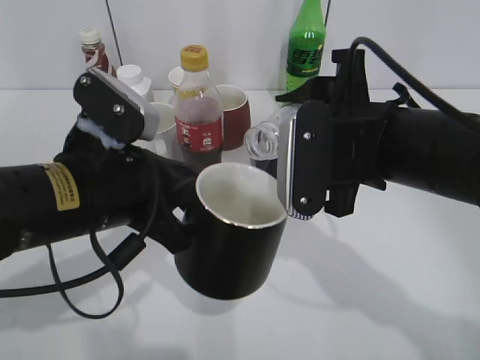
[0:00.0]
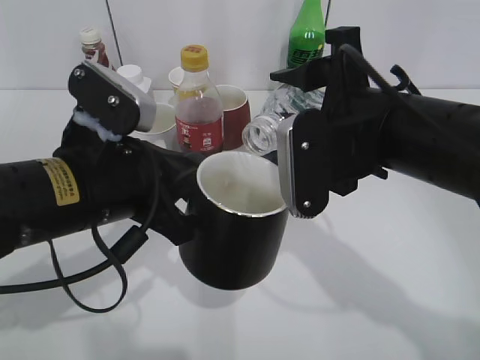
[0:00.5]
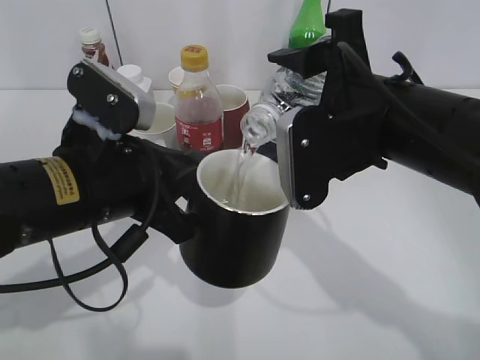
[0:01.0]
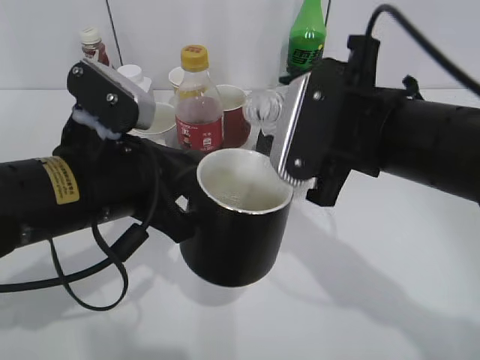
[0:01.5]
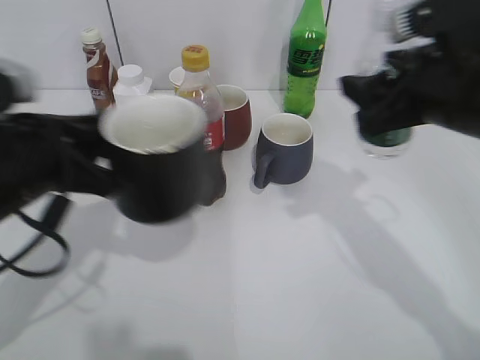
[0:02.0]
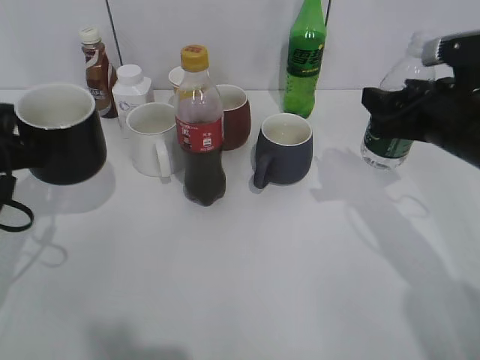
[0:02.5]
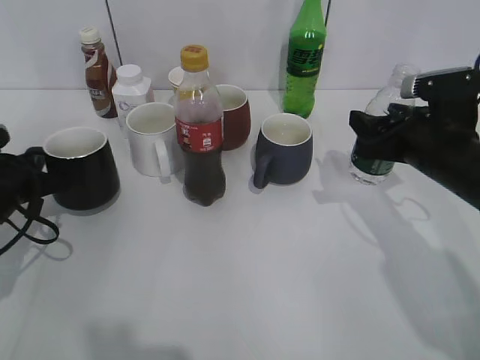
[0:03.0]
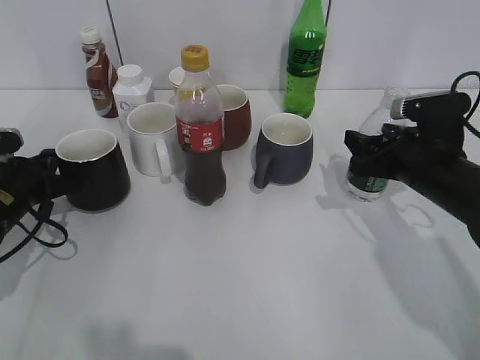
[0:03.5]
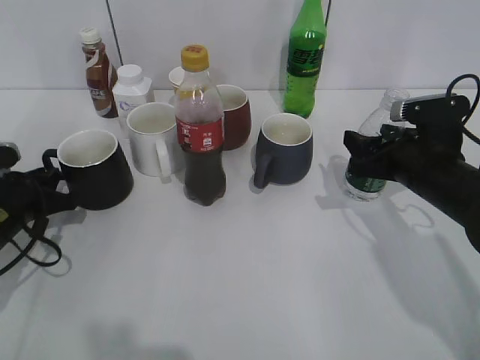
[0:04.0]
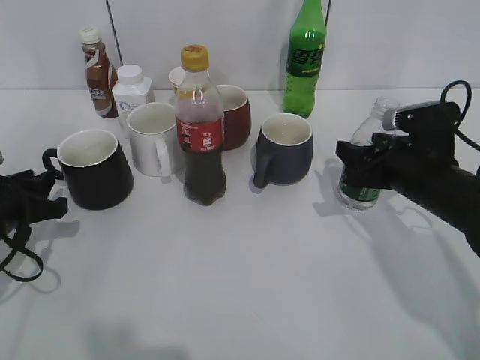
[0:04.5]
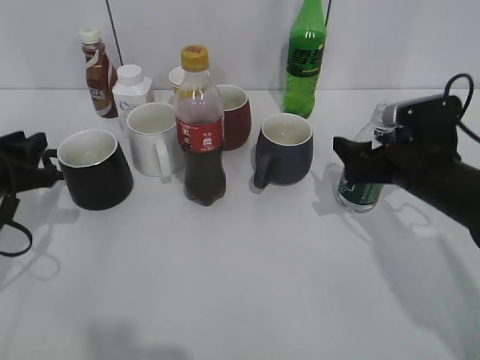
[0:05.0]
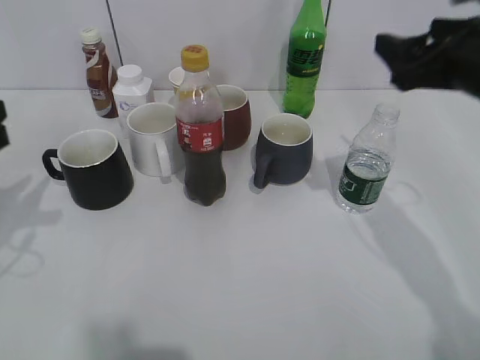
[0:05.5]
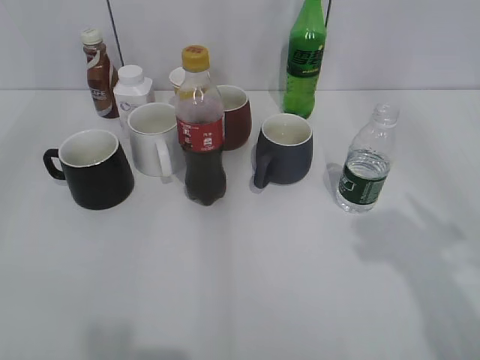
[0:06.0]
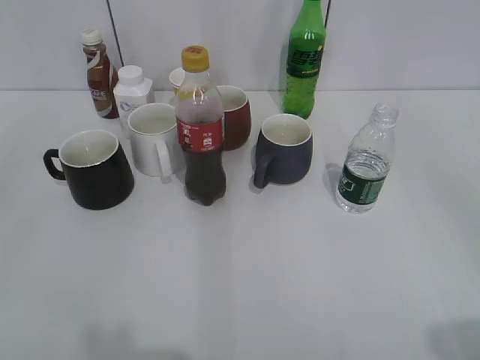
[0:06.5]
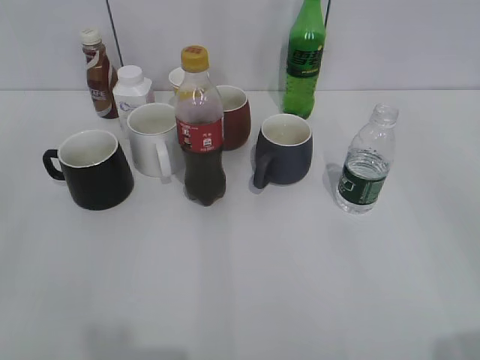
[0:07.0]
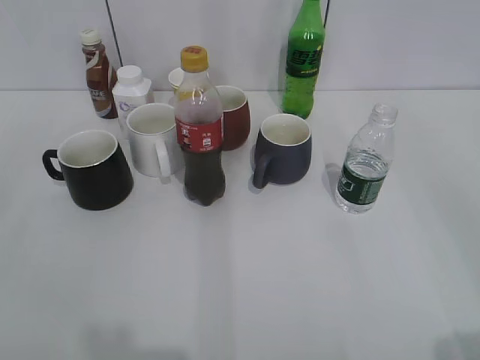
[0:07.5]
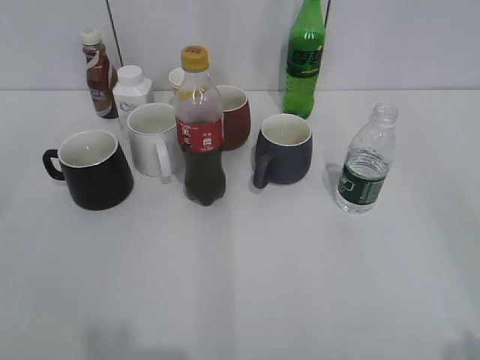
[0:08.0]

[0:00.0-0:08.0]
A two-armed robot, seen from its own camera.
Step, 0:02.0 to 0:05.0: Place the water bottle on the table with right gripper.
0:00.0 to 0:02.0: The right gripper goes some 5 cm to the right. Meanwhile the left gripper shifts roughly 5 cm to the left.
0:02.0 to 0:04.0: The right gripper goes roughly 15 cm downward. Meanwhile the left gripper goes some 20 cm downward, to the left and forward.
0:04.0 to 0:06.0: The two grippers go roughly 30 cm upward and backward. The right gripper opens its fingers. The left gripper opens up.
